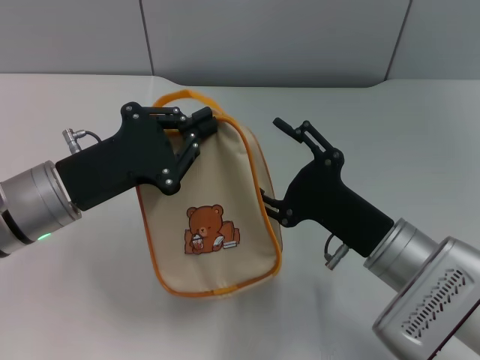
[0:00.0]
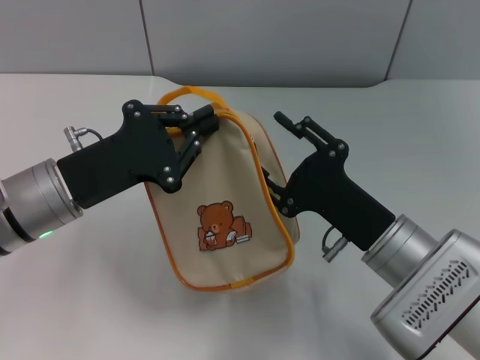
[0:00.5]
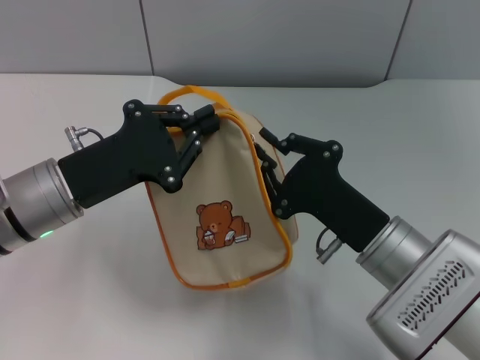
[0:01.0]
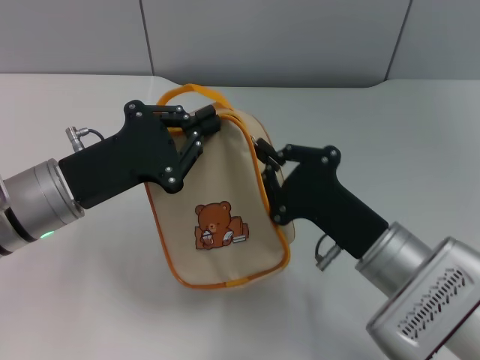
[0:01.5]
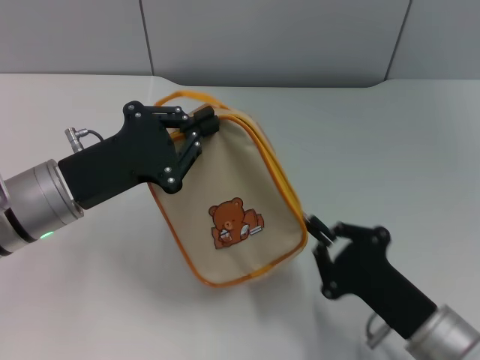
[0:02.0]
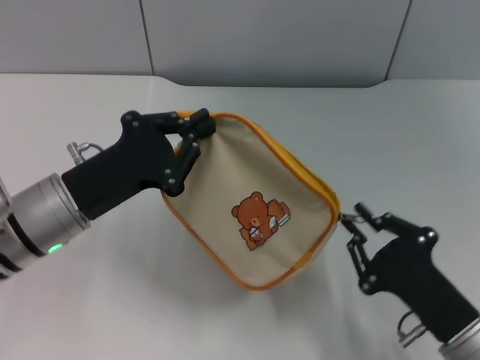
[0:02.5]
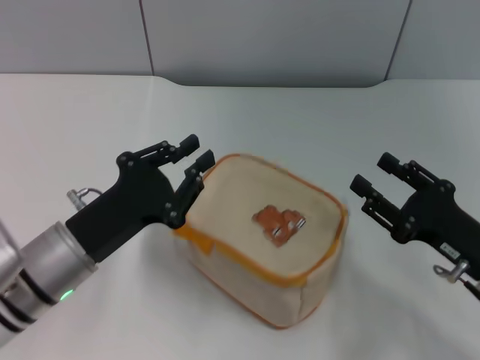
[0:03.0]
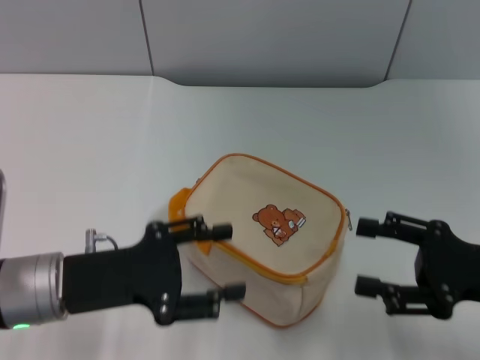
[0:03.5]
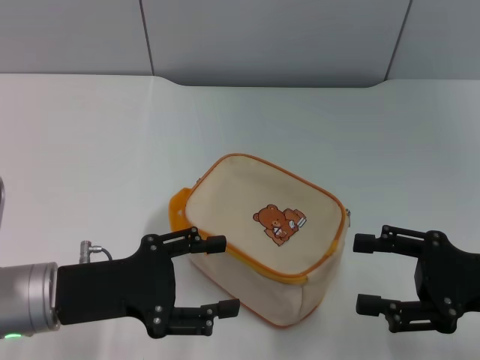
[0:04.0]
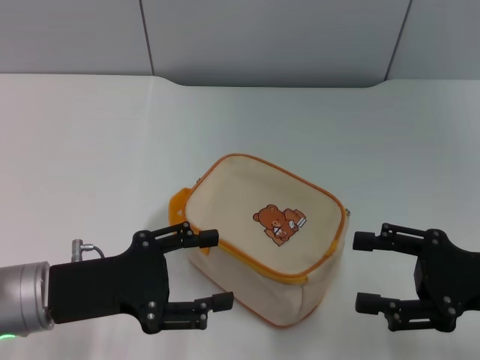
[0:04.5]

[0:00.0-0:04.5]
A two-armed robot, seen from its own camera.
Step, 0:00.0 to 0:02.5: Unzip the zipper of bag with right gripper.
0:00.0 to 0:02.0: The right gripper moves backward, roughly 5 cm, and closes up.
0:02.0 to 0:04.5: The left gripper goes approximately 5 cm backward, and opens. The right gripper travels to the right, upward and forward by about 15 cm, and opens its fingers.

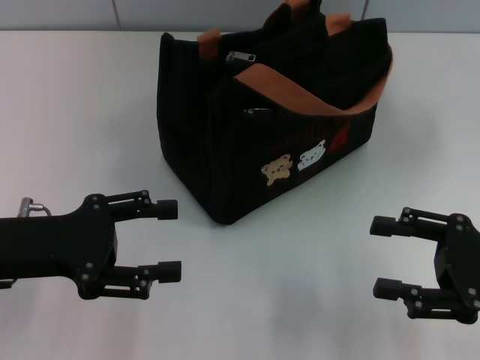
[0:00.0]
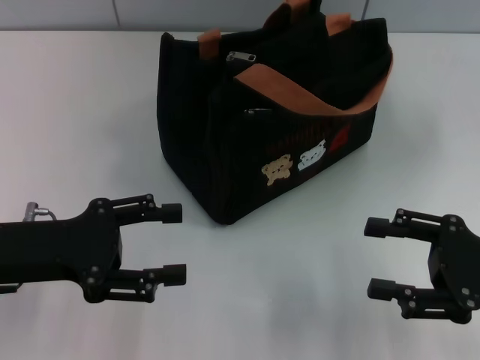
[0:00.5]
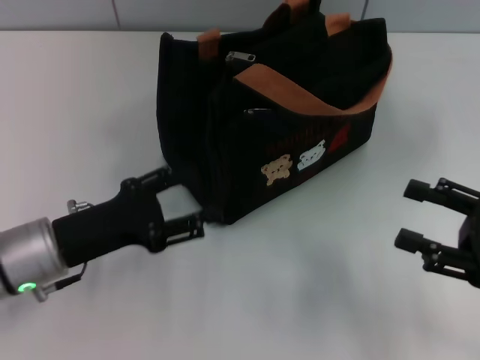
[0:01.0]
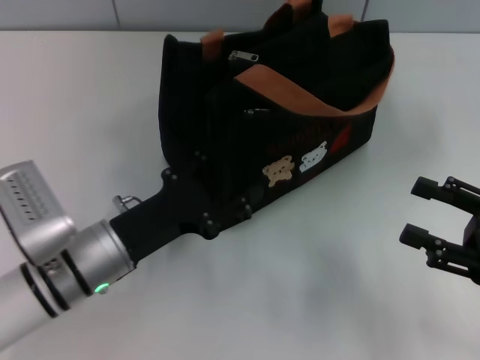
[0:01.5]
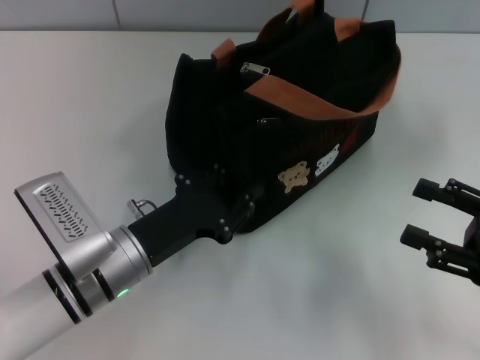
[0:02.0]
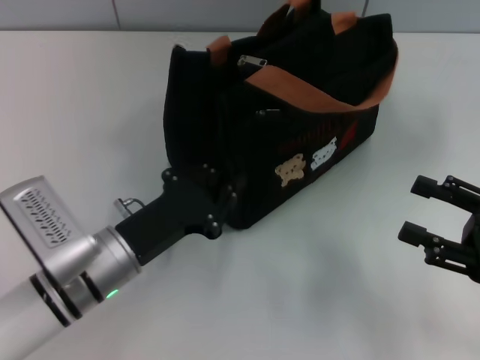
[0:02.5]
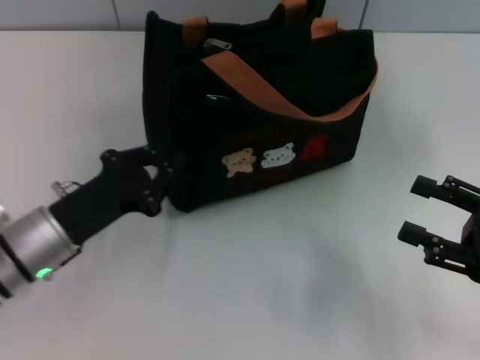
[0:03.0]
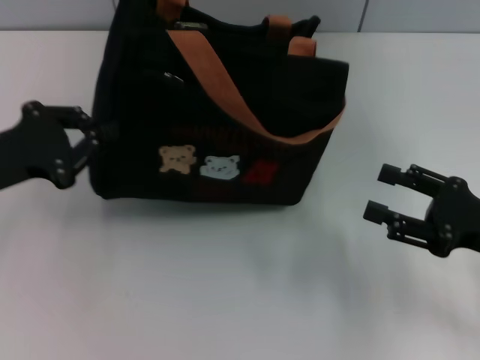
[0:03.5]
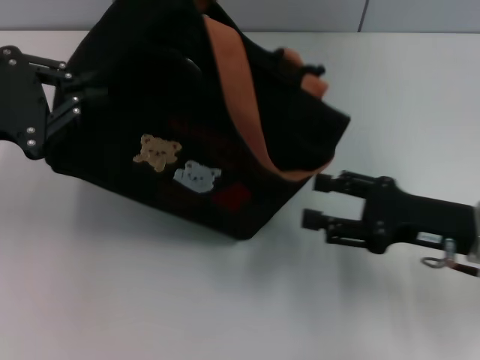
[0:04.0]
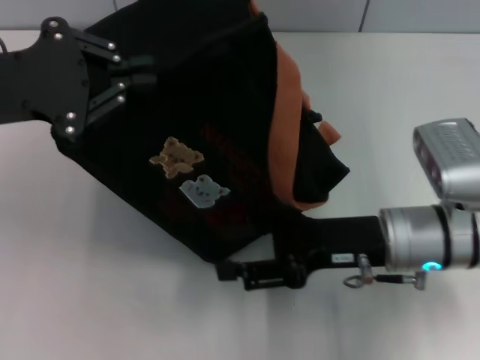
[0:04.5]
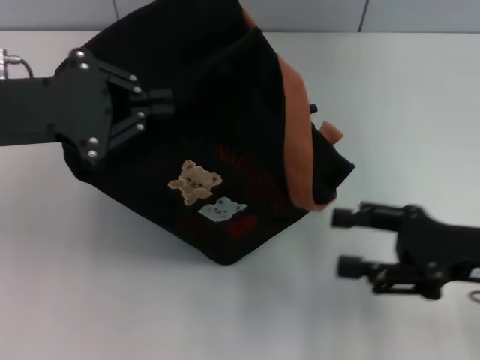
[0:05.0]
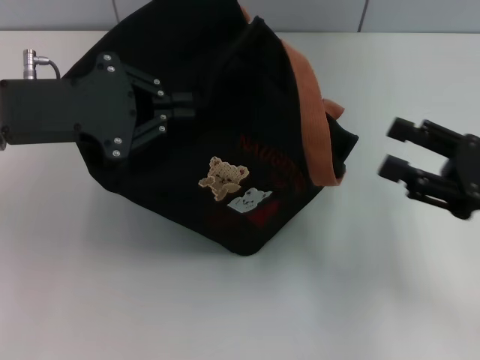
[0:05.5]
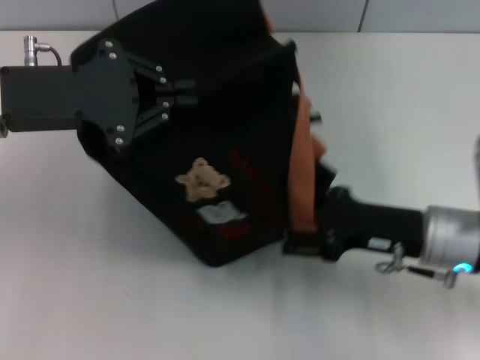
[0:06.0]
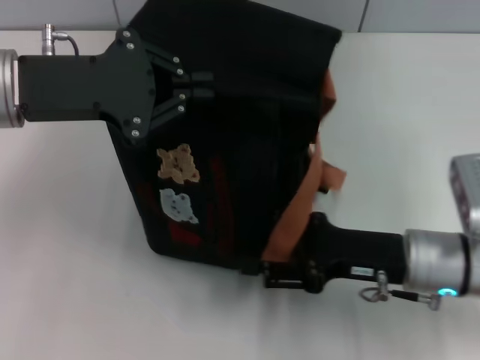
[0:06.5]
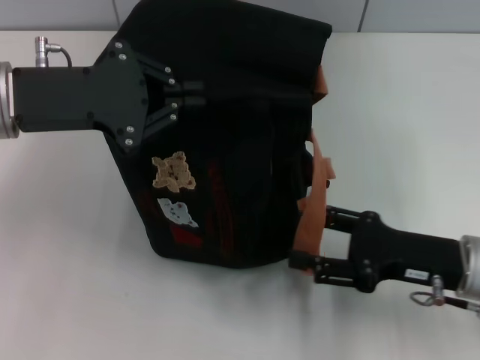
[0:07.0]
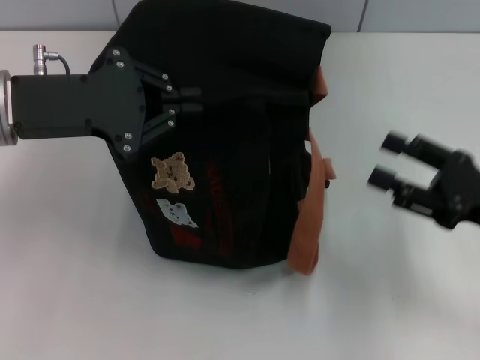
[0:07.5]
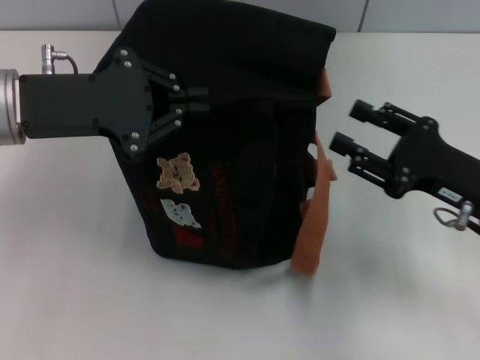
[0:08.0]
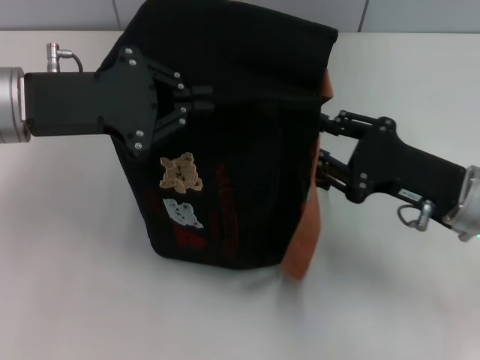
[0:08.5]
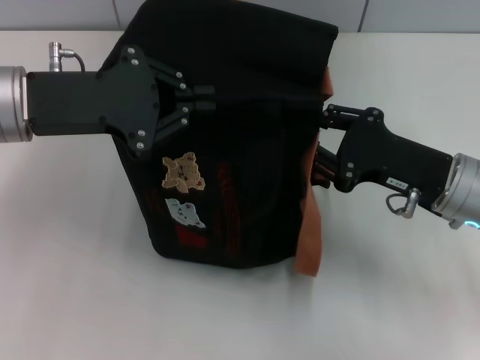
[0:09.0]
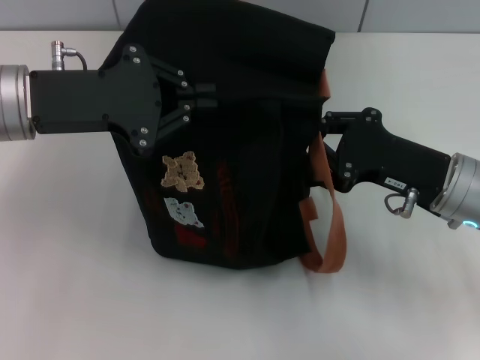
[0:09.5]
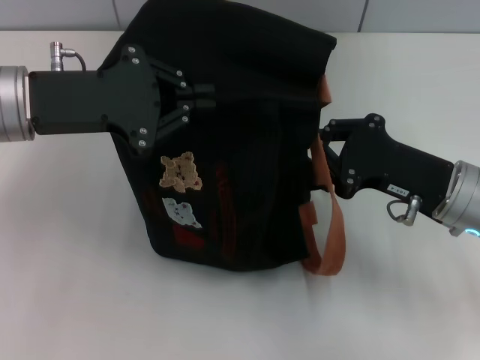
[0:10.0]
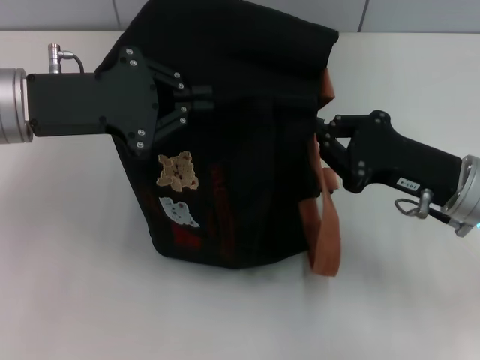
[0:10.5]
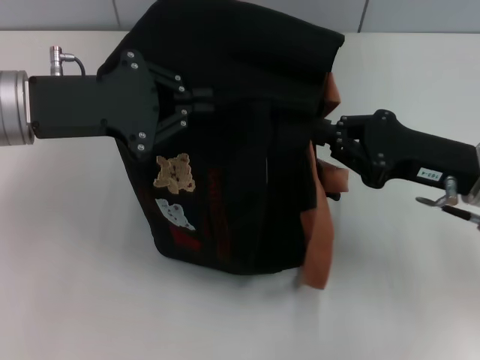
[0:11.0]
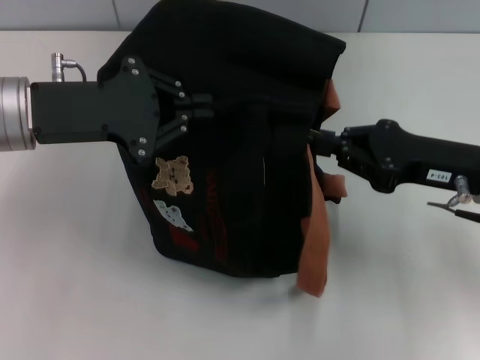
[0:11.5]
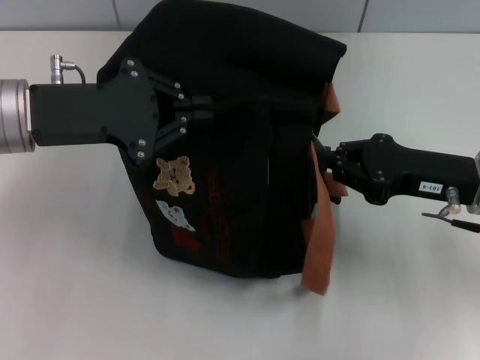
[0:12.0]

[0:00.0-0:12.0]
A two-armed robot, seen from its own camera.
0:00.0 to 0:02.0: The left gripper goes some 15 cm to the right and downward.
0:02.0 to 0:04.0: The left gripper heads upward and to the left, covering roughly 20 cm, and closes up; the right gripper goes roughly 10 cm to the left and forward.
0:04.0 to 0:06.0: The right gripper moves left and right over approximately 15 cm, changing direction 2 times, while the left gripper travels to the right by about 5 cm.
0:08.0 to 0:10.0: The right gripper closes its fingers.

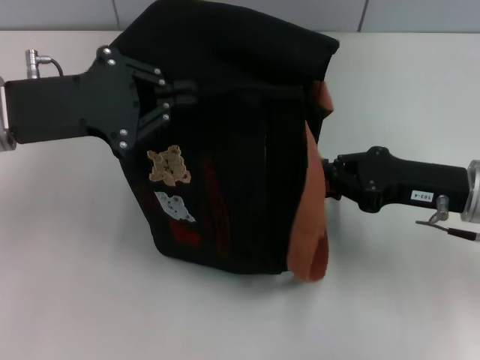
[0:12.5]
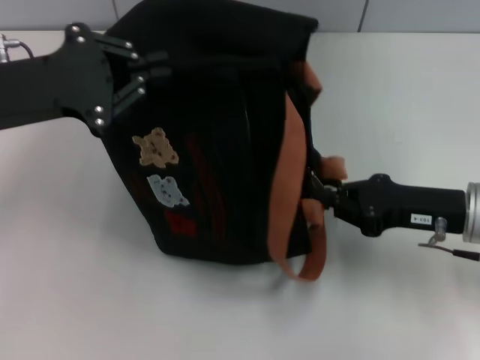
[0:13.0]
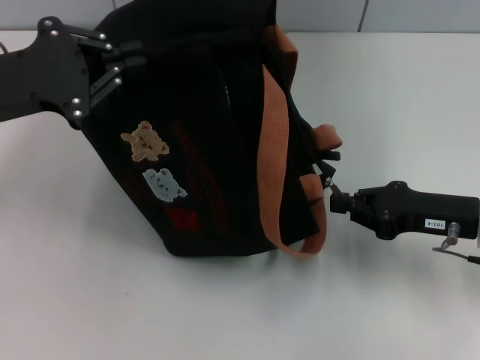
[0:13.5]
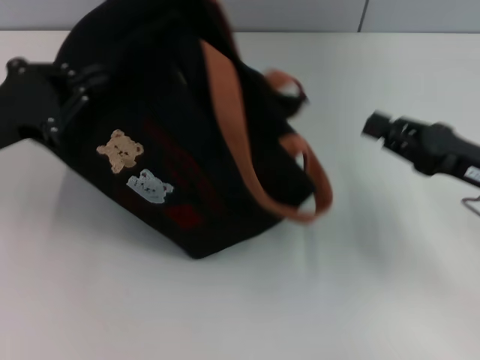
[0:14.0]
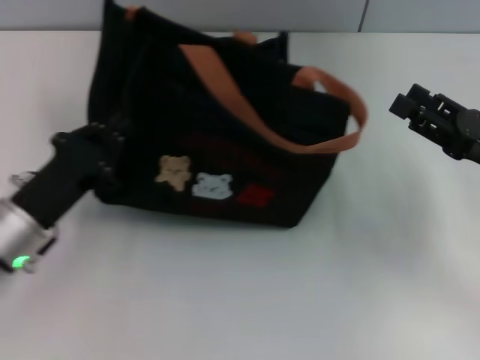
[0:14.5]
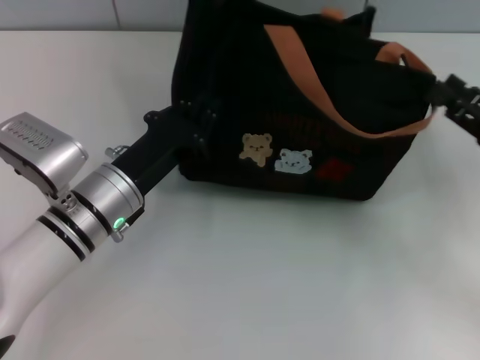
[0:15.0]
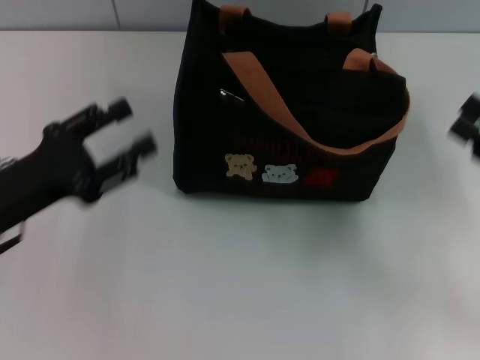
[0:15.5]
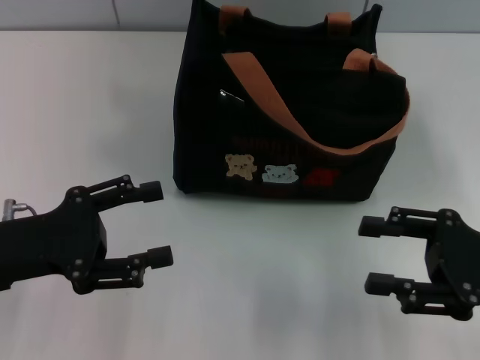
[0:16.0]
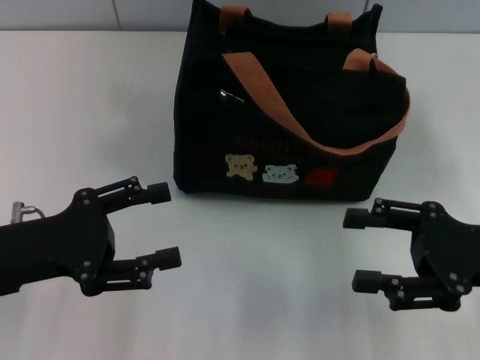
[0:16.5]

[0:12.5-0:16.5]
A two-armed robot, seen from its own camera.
Step, 0:14.0 to 0:15.0: Grab the bag with your left hand.
0:12.5 to 0:14.5: The right gripper goes roughly 5 cm to the right, and opens up, while the left gripper travels downward and backward by approximately 15 cm.
0:14.5 to 0:16.5: The left gripper moves upward, about 5 cm, moves about 10 cm to the right and comes back, and opens up. The right gripper shifts by approximately 5 cm.

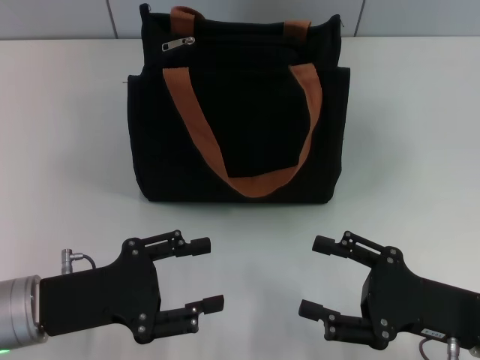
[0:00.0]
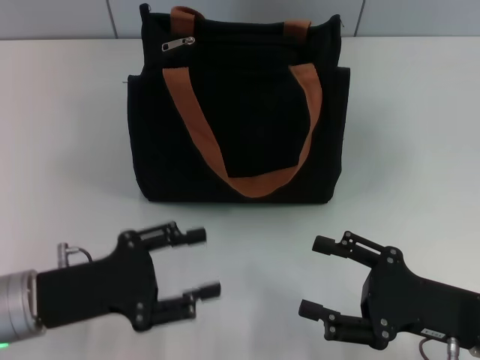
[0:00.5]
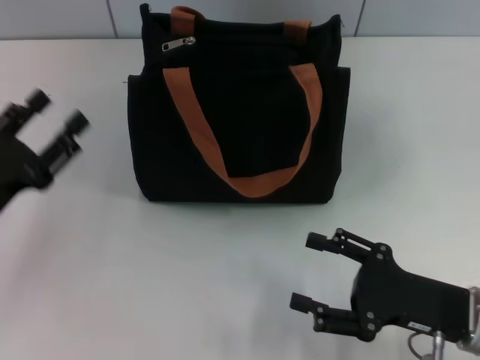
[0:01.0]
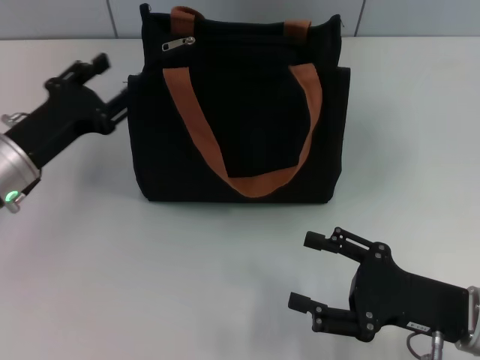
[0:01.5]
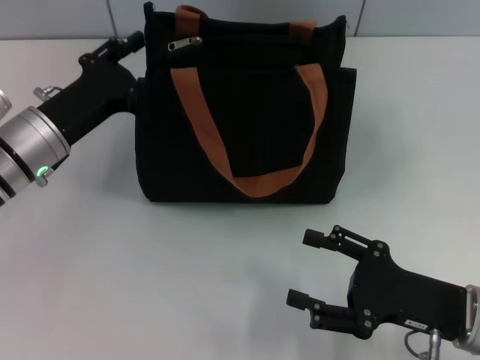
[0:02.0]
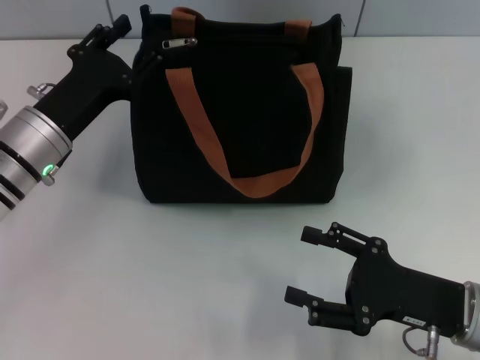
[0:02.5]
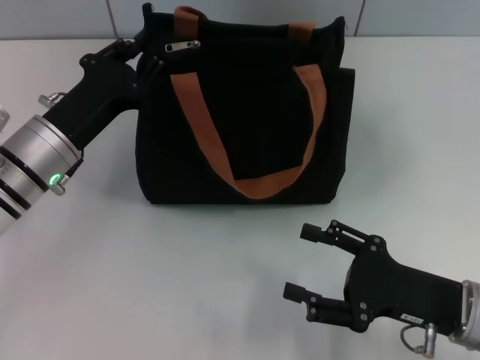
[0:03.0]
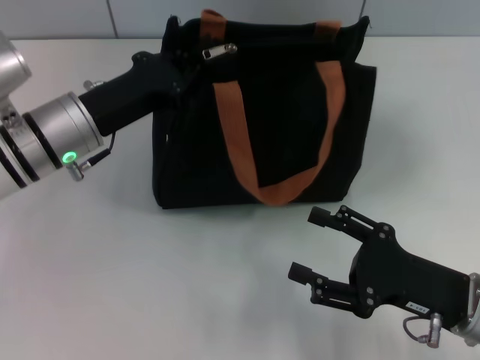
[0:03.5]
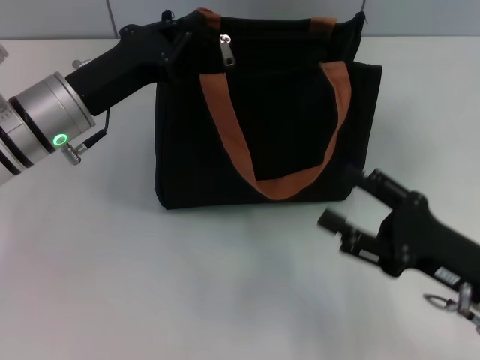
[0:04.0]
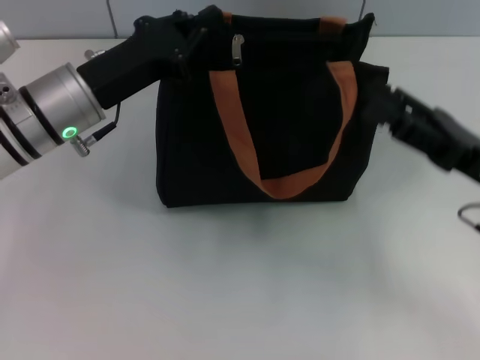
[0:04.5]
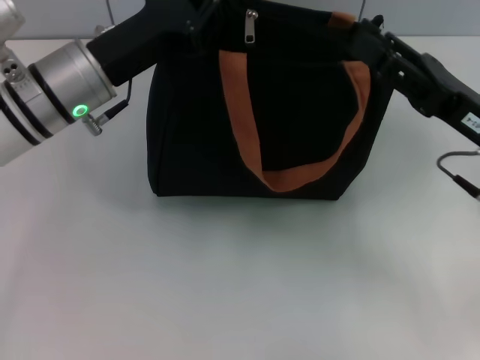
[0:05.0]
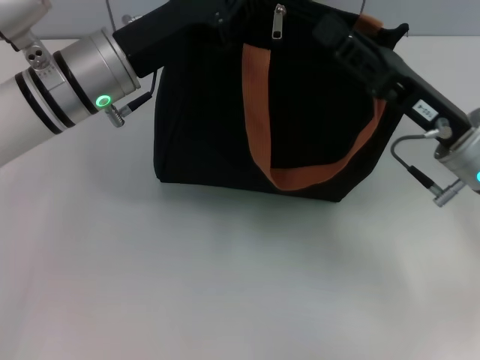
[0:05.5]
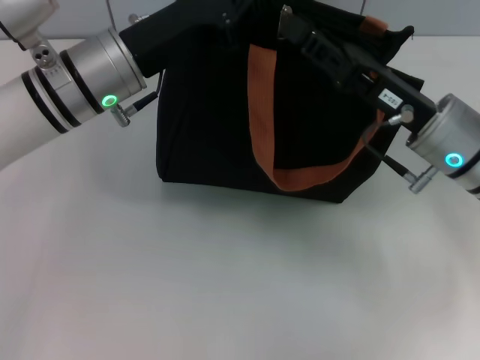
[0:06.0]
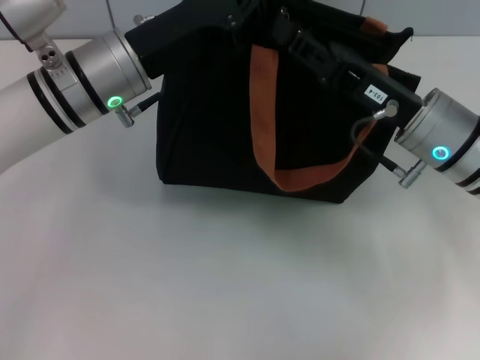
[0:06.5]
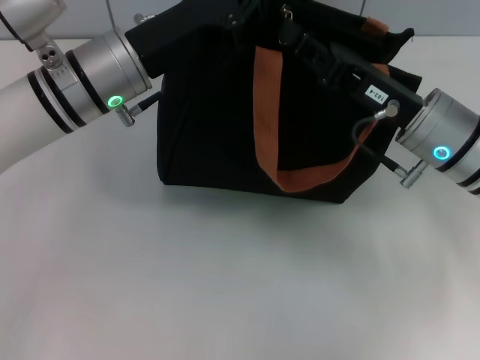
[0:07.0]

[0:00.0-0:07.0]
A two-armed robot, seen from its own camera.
0:00.0 to 0:02.0: The left gripper shifts about 15 cm forward.
0:02.0 to 0:03.5: The left gripper closes.
0:03.5 to 0:05.0: The right gripper heads forward and upward, covering some 10 cm.
0:05.0 to 0:07.0: The right gripper is displaced to the left by approximately 5 cm, and closes up.
